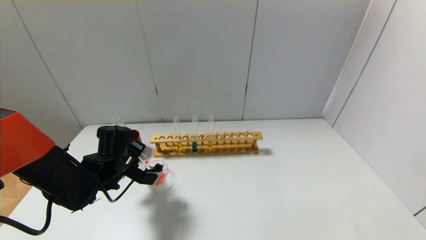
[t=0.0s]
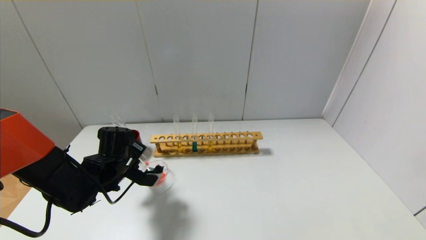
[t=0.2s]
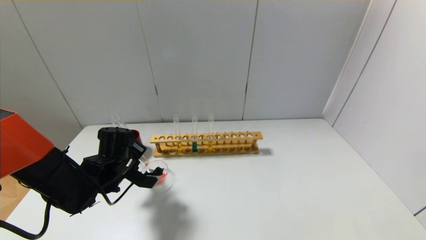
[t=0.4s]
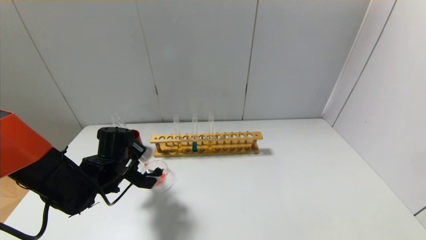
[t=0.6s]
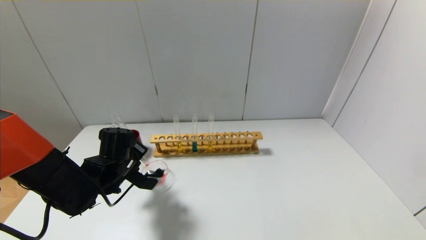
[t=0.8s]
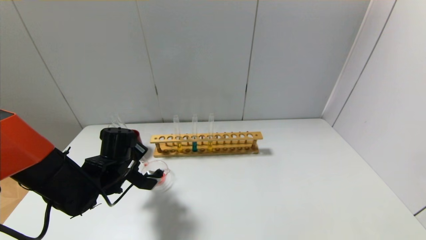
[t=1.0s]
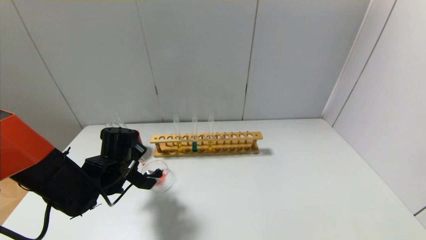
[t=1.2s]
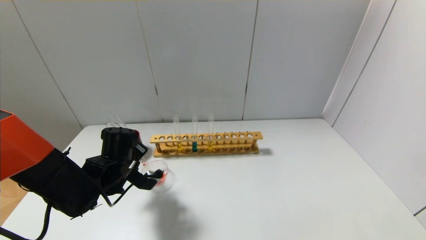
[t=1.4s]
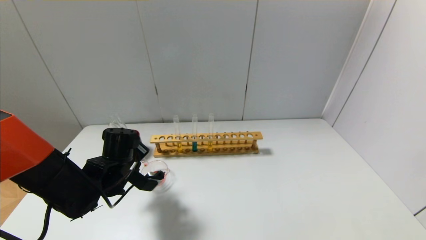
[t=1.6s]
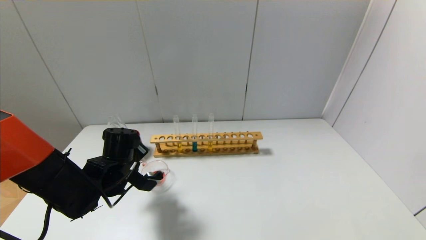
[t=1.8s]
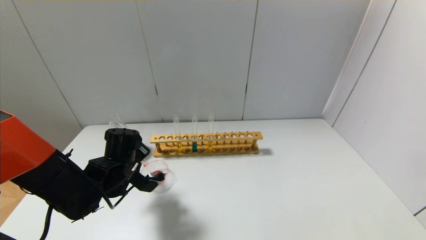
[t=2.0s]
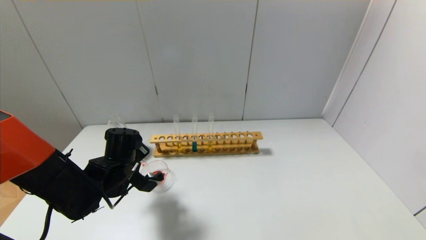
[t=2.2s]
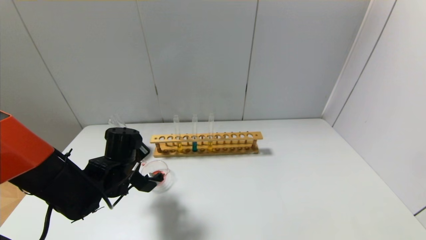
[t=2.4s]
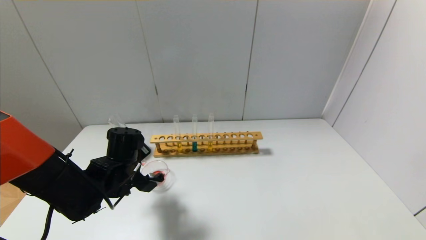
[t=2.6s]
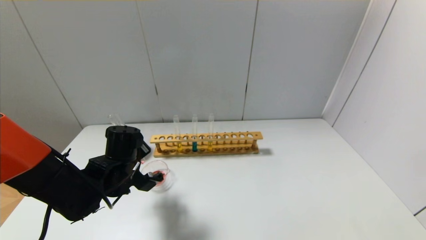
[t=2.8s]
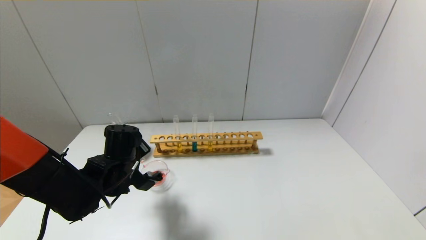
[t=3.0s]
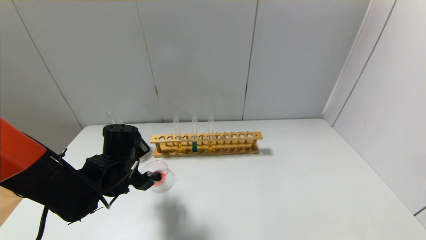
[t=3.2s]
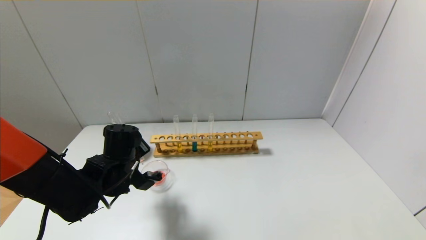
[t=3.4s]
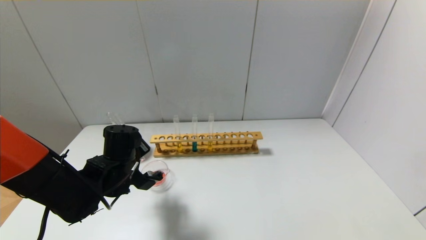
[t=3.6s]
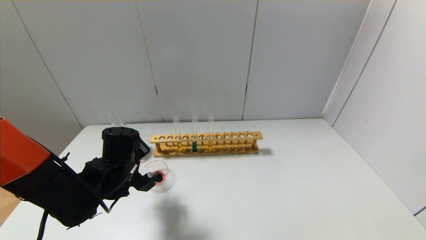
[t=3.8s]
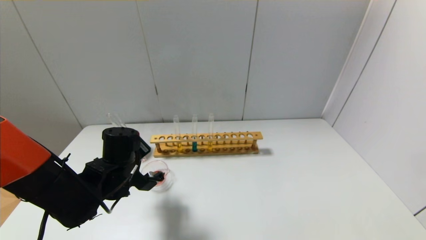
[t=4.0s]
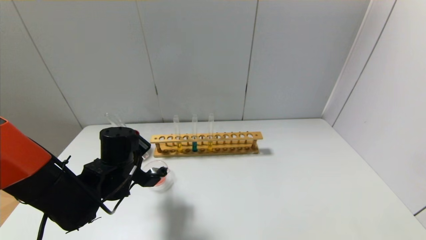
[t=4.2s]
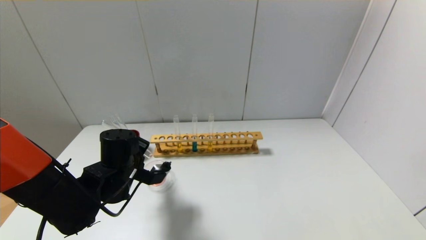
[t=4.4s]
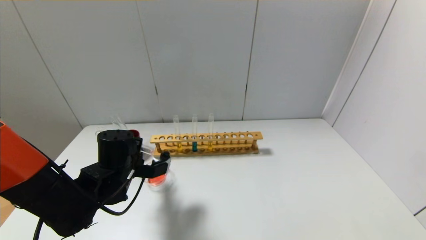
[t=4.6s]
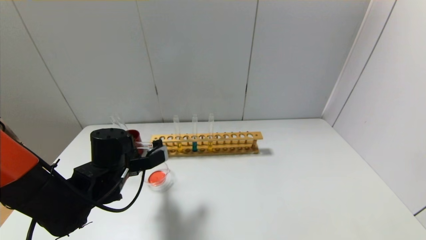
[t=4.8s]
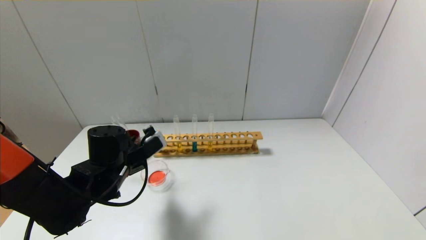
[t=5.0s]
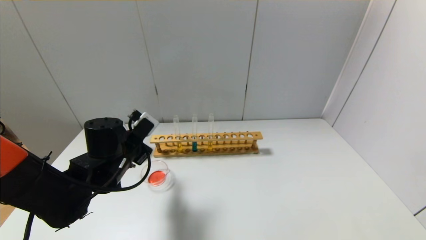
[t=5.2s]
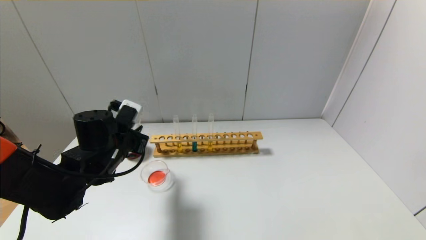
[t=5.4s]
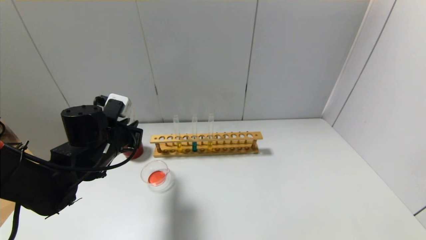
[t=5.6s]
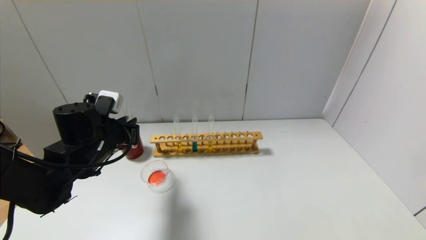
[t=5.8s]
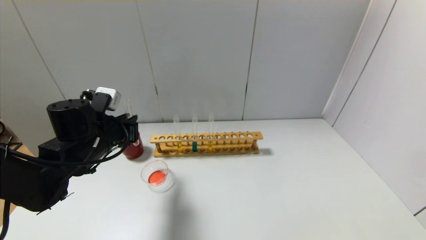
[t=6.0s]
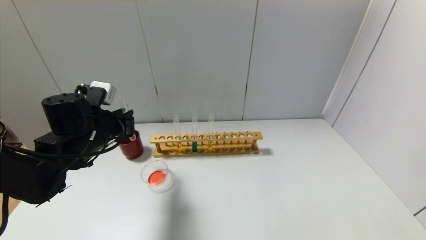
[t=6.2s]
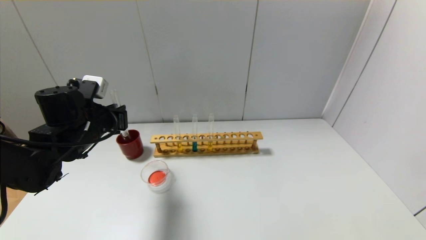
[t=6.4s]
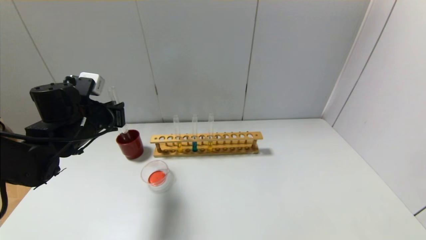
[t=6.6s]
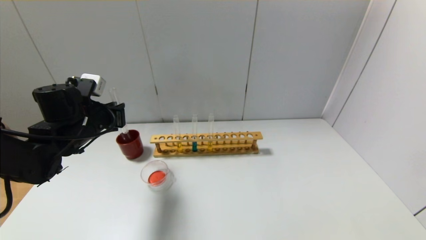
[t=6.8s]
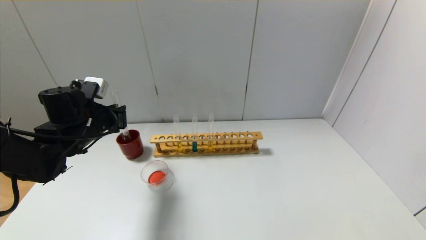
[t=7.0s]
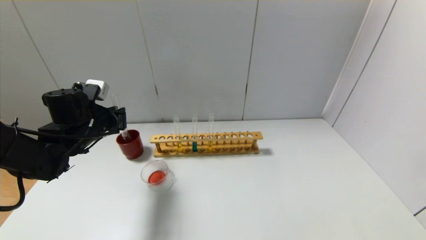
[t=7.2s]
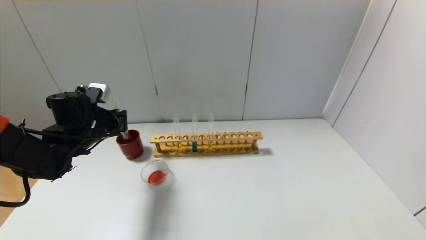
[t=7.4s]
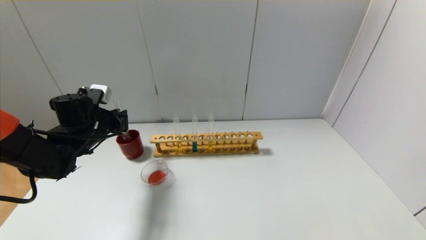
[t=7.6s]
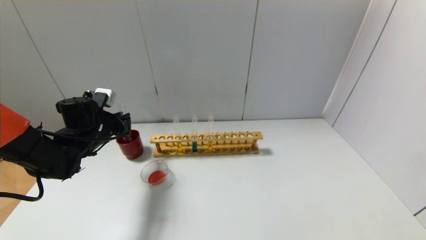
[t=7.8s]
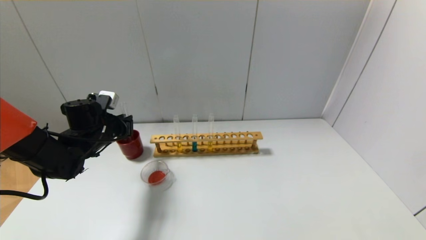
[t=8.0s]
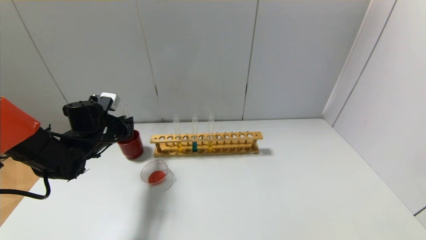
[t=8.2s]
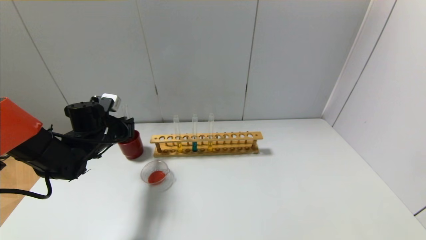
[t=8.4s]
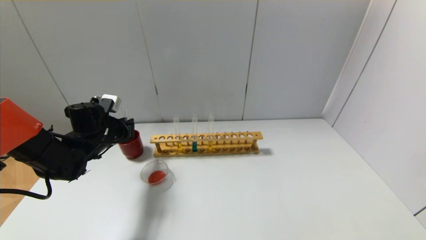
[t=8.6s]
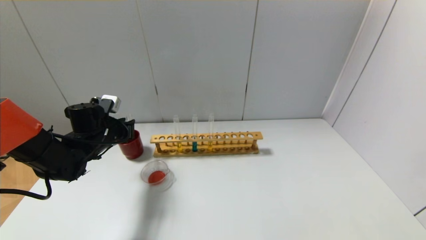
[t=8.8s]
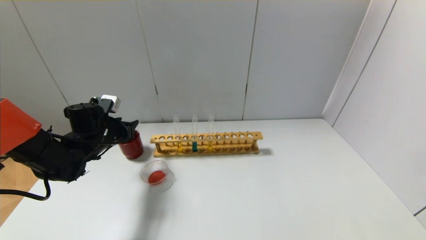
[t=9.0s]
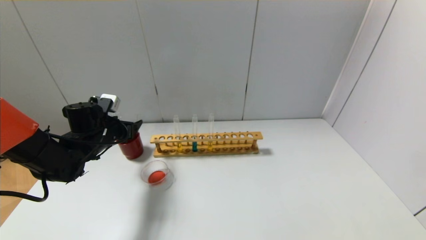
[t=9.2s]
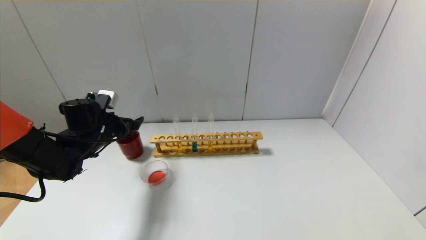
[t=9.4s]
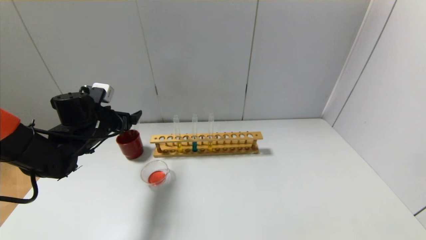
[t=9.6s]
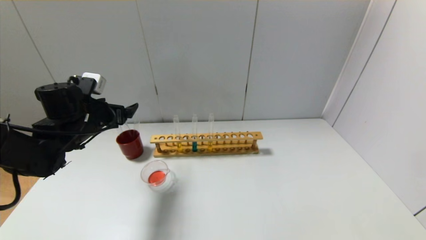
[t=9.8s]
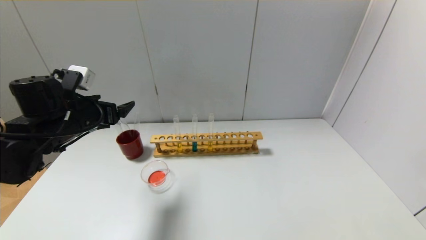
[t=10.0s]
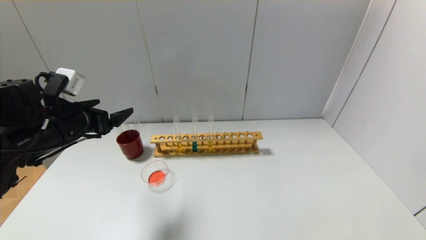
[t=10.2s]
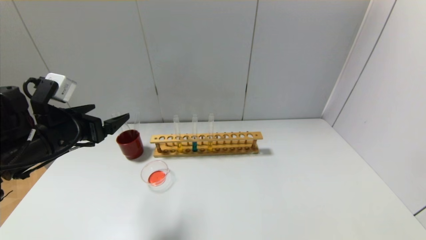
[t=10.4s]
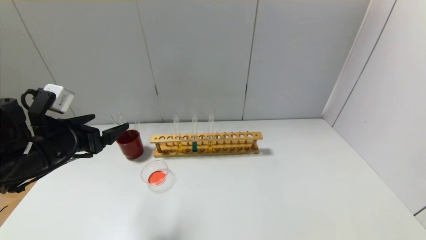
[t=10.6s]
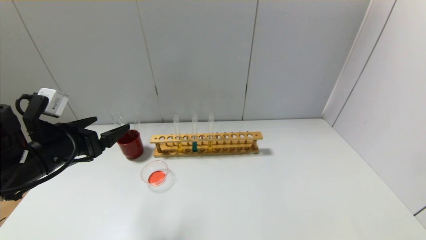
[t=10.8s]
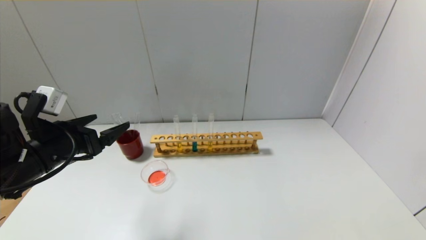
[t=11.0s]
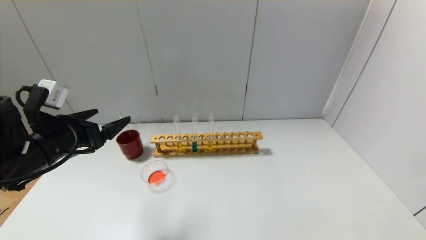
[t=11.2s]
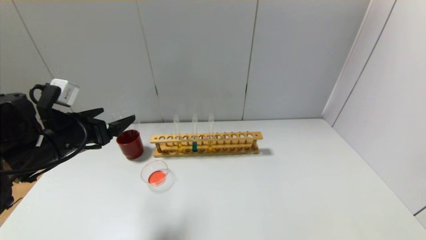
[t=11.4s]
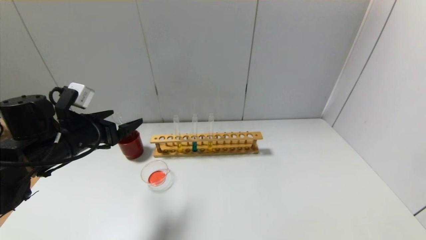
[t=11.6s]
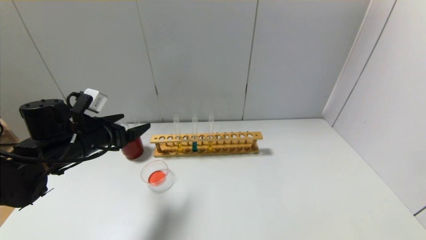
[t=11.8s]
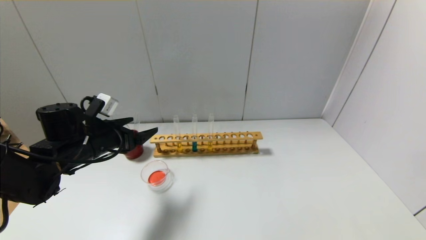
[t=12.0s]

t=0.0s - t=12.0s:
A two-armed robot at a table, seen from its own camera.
Step, t=4.2s - t=9.2s: Place the test tube into the brown cup with the left gripper.
t=0.0s - t=1.6s: The grippers stay close to where they were, moving slightly.
t=1.6s - t=3.0s: There are only small adjustments of the grippers.
t=4.4s - t=6.0s: The left gripper shifts about 5 cm upward.
t=6.0s - t=7.6s: The left gripper moves forward and to the left, approximately 10 cm.
t=7.6s - t=9.0s: The left gripper opens up.
t=9.0s - t=10.4s: The left gripper moves backward and upward, roughly 15 cm, and opens.
t=10.4s - t=12.0s: The left gripper shifts roughly 10 cm forward and downward.

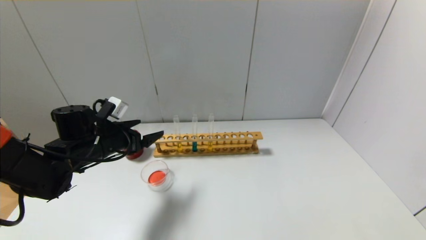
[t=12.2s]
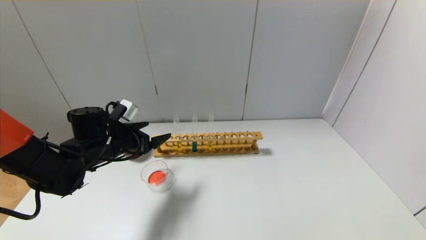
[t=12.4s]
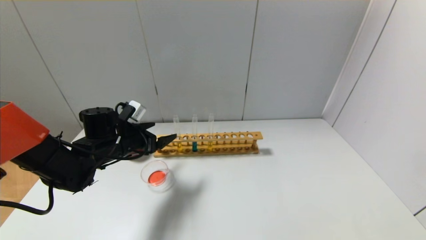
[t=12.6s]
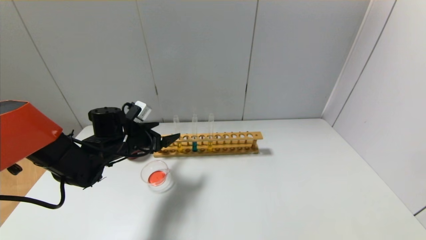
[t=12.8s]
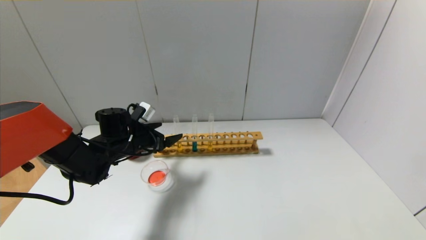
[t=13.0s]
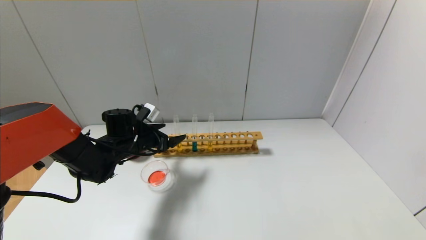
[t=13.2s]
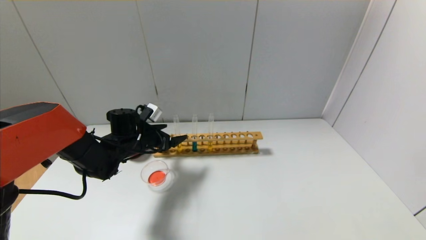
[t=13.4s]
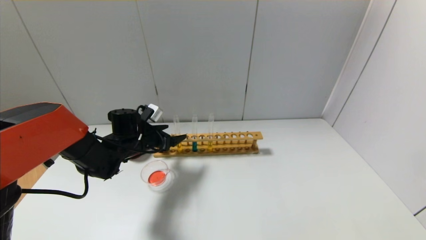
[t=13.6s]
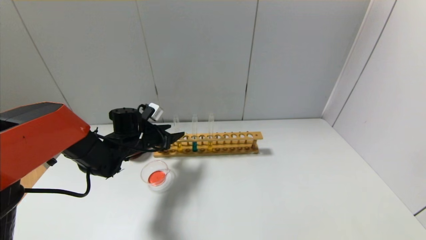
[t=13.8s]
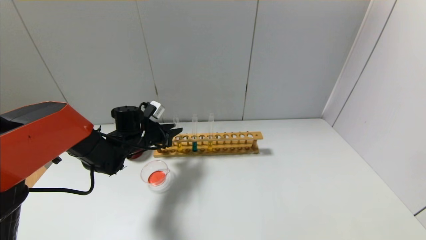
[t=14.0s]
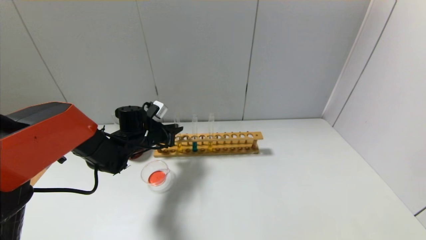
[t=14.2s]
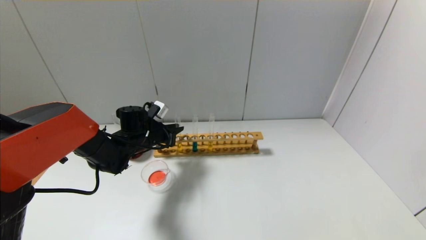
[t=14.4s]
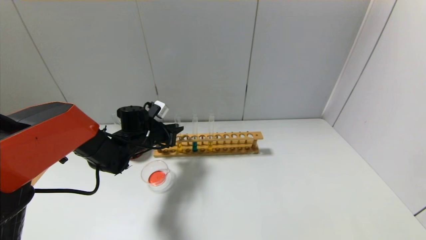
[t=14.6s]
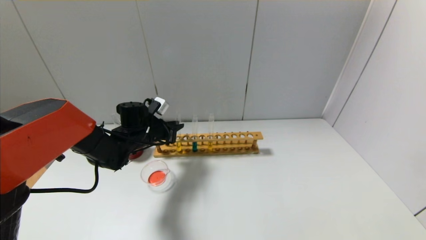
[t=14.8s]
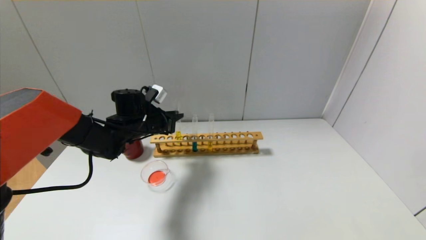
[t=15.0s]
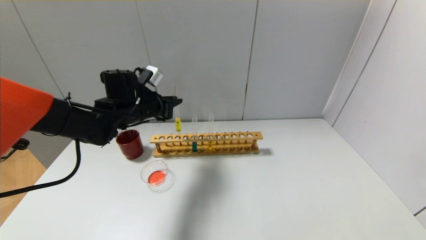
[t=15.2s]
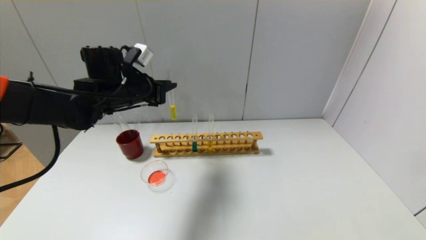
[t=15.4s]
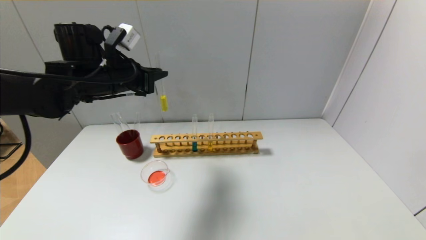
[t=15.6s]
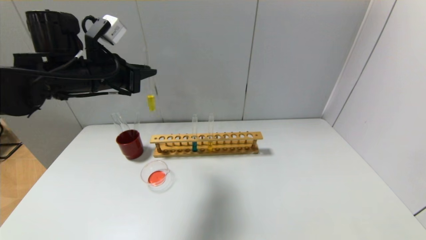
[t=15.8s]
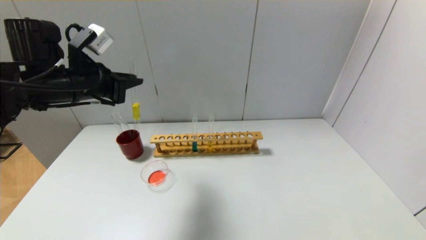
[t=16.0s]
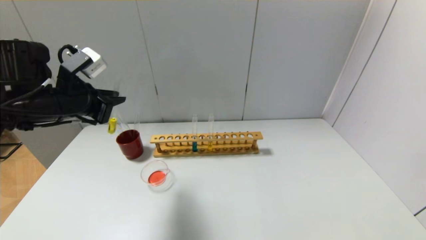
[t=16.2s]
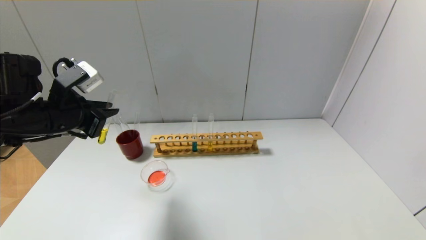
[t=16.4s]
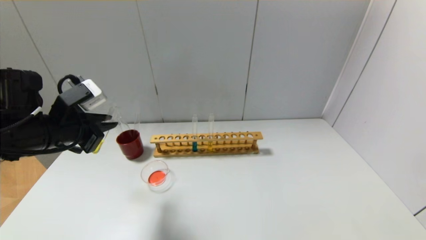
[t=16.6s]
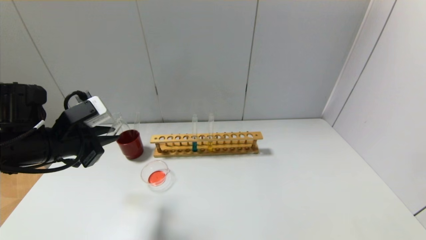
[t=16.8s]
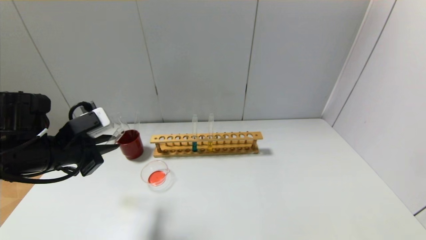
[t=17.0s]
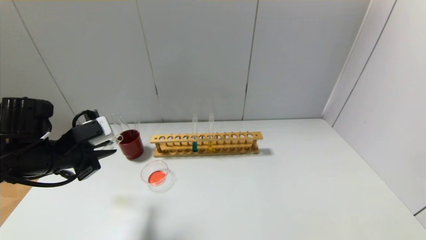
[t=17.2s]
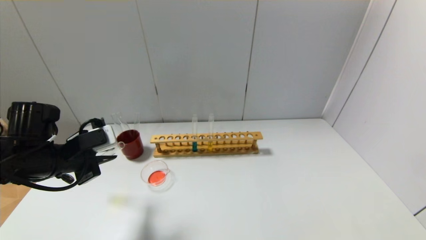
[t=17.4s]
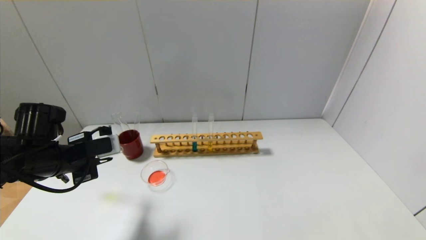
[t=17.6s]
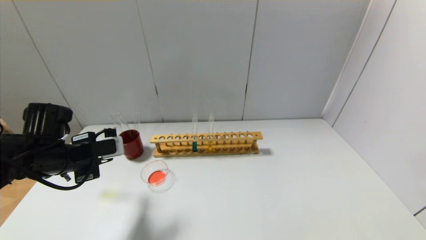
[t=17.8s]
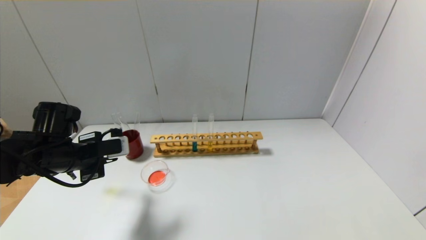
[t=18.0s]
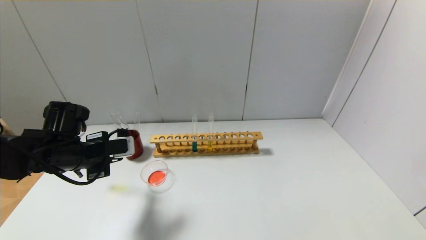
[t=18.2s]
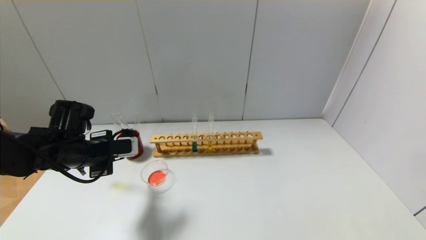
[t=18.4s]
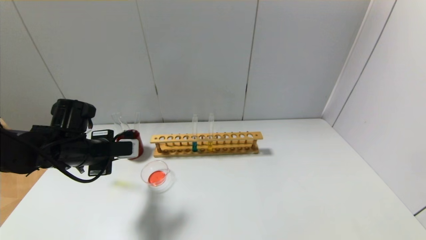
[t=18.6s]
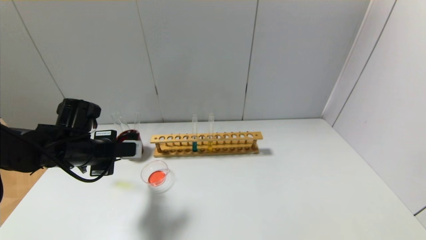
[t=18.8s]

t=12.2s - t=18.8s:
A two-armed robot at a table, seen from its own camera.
Step, t=12.2s - t=14.6s: Grasp the yellow reagent with the left gripper.
t=12.2s - t=13.8s: The left gripper shifts approximately 10 cm forward, and closes.
t=13.8s - t=15.4s: The left gripper heads upward, covering about 15 cm, and closes.
t=15.4s - t=17.2s: The left gripper moves backward, to the left and downward, some 15 cm.
t=17.2s - t=18.8s: The left gripper moves some 5 cm.
